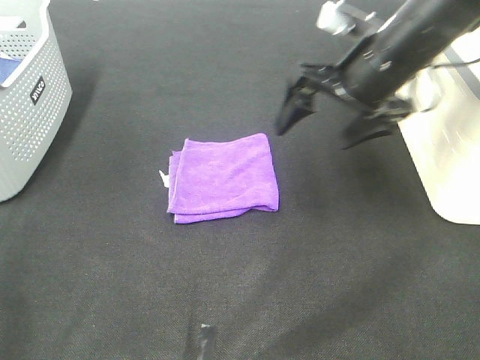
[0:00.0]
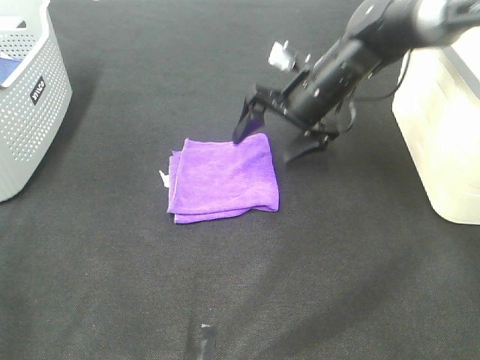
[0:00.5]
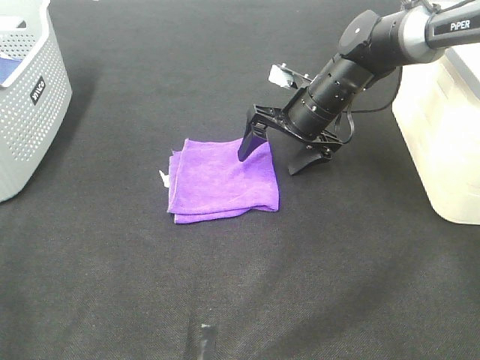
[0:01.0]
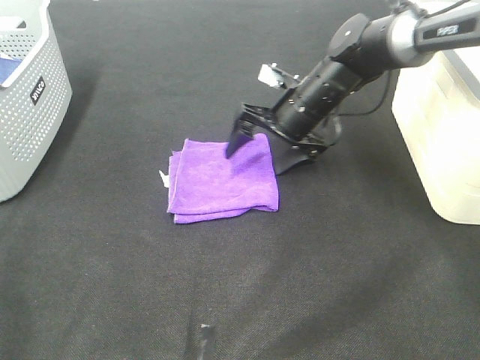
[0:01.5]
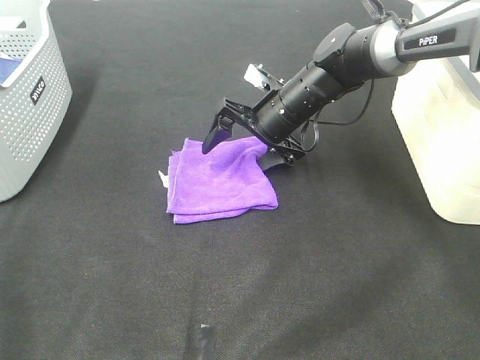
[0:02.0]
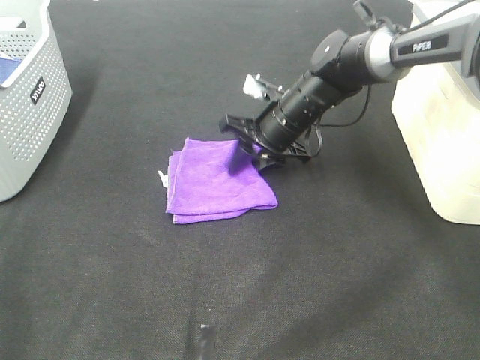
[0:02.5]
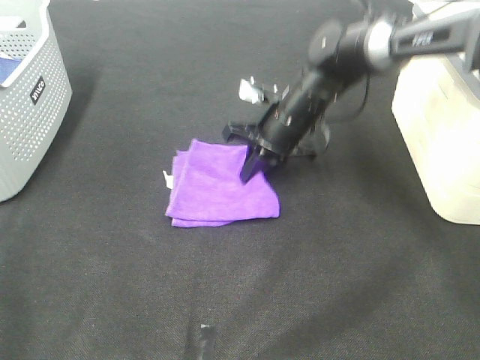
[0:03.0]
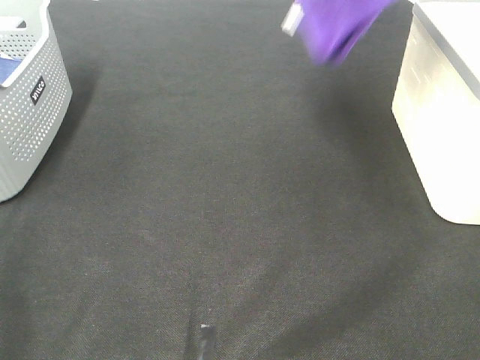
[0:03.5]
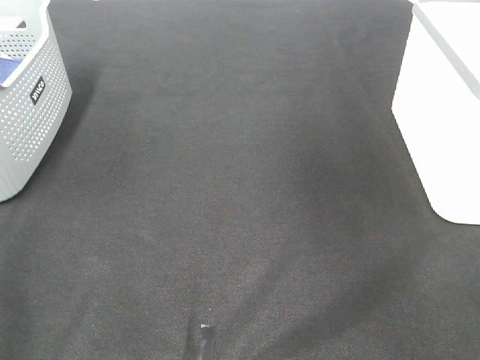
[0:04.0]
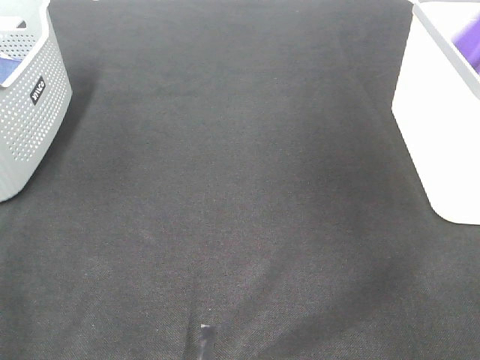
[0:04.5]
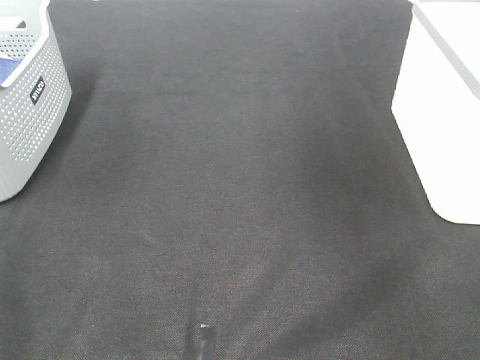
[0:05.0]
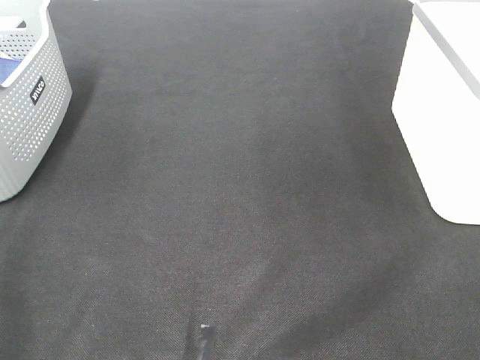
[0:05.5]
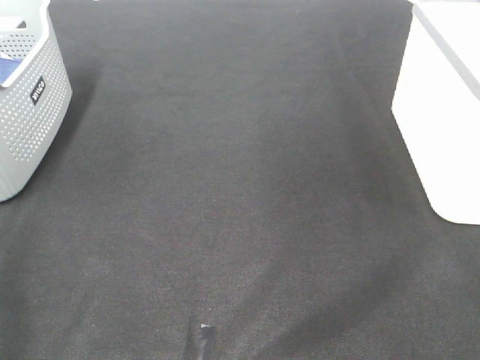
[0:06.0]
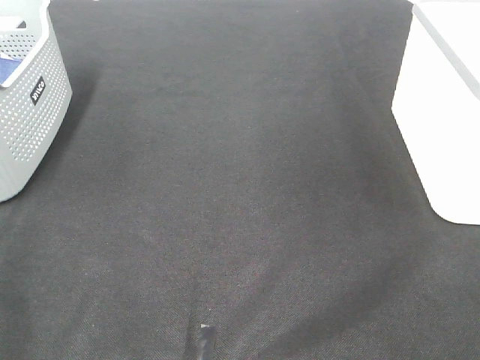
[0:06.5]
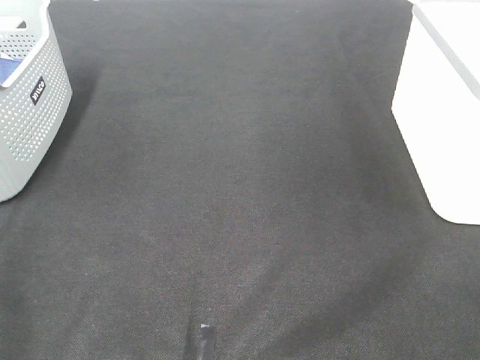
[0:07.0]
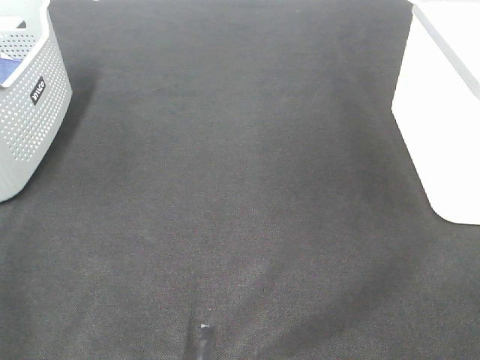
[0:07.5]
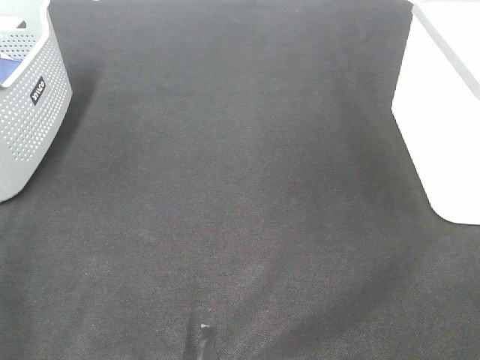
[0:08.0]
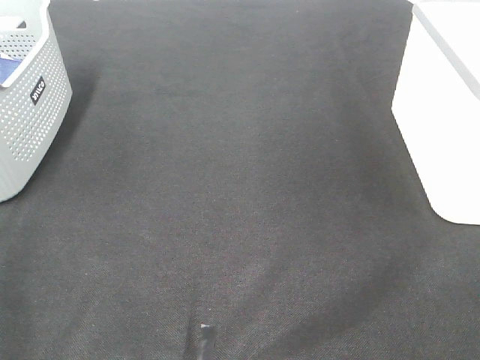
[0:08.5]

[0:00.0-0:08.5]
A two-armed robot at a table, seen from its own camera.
Step, 0:00.0 to 0:02.5: Right hand: grab the folded purple towel.
Step, 0:03.0 to 0:04.5: Right hand: place the purple towel in right basket.
0:00.0 to 0:02.0: The right gripper shifts approximately 15 cm downward, forward and to the left.
0:02.0 to 0:04.0: The right gripper shifts roughly 40 cm upward and to the right, and closes.

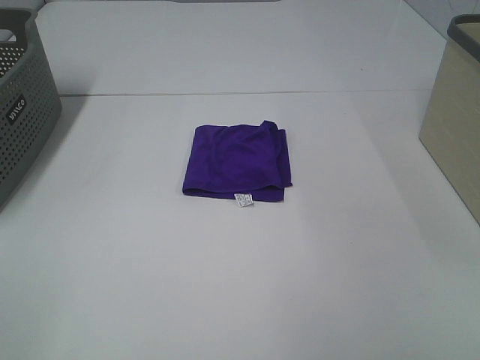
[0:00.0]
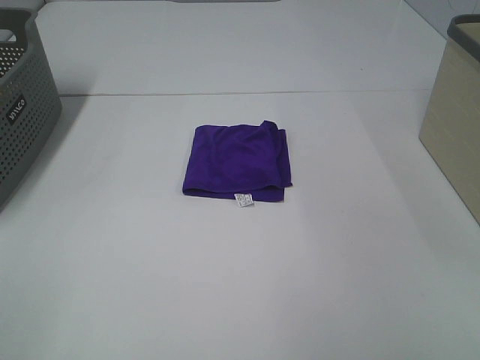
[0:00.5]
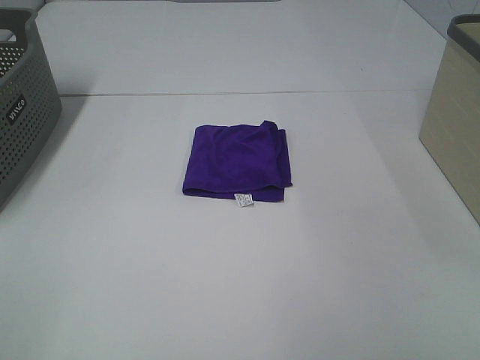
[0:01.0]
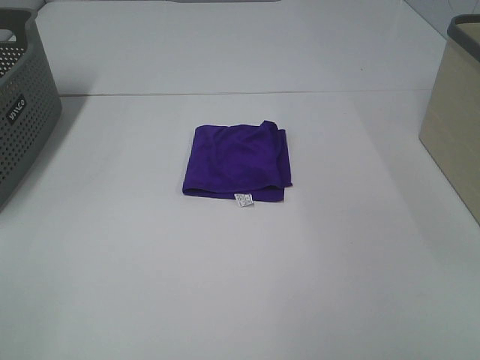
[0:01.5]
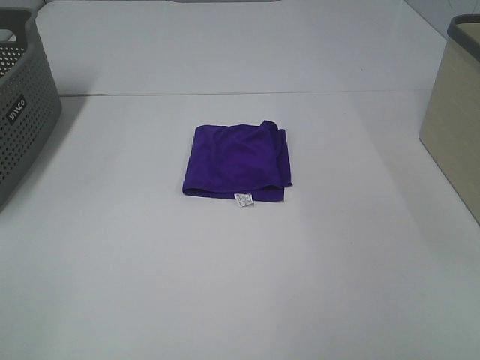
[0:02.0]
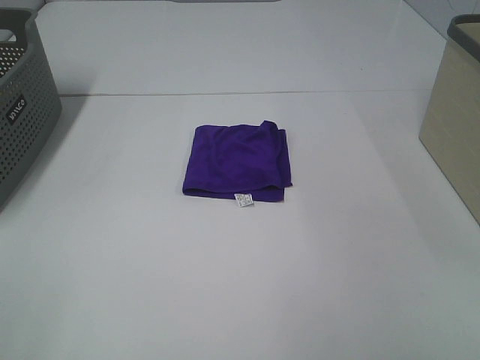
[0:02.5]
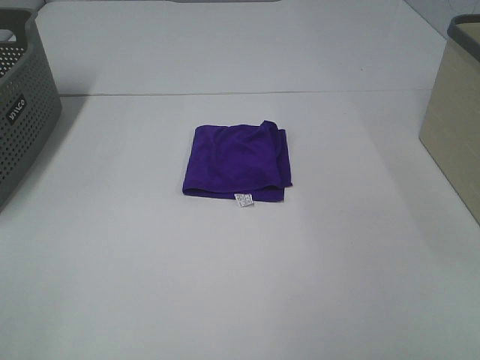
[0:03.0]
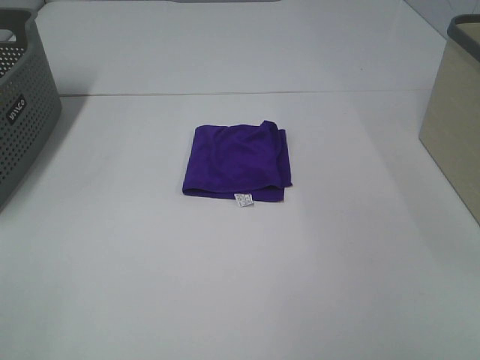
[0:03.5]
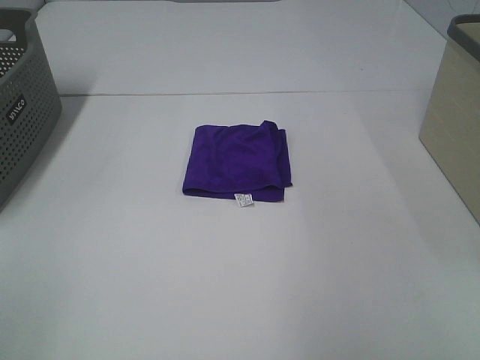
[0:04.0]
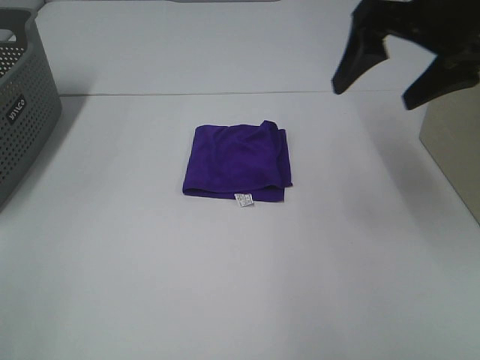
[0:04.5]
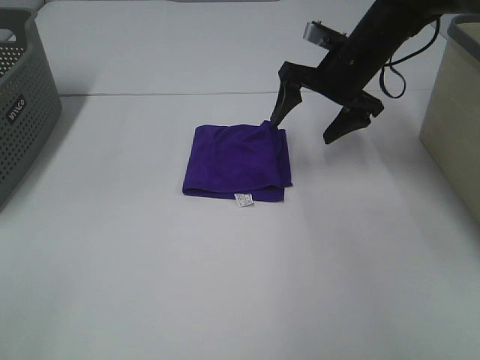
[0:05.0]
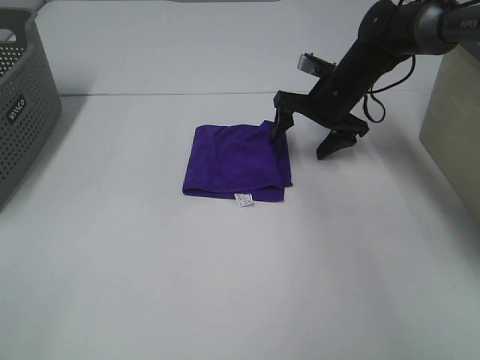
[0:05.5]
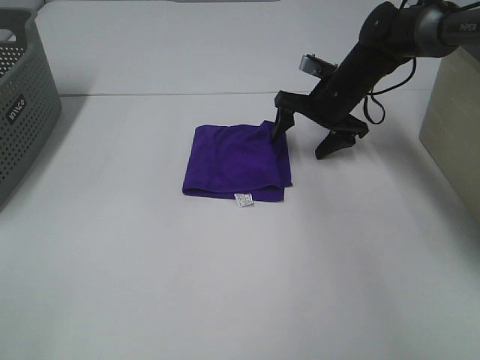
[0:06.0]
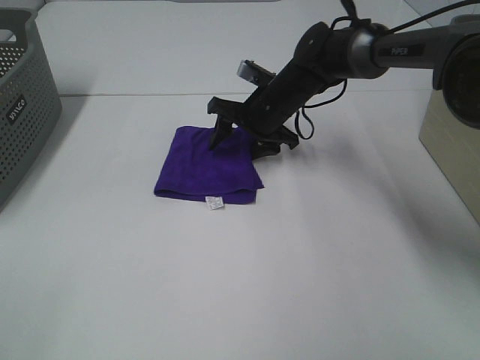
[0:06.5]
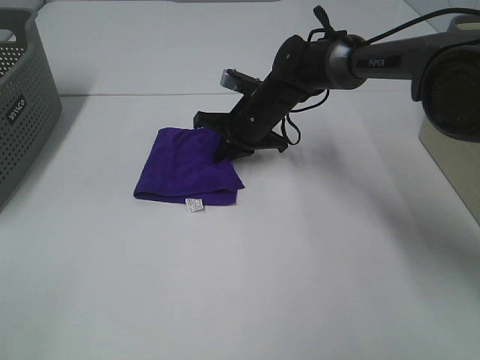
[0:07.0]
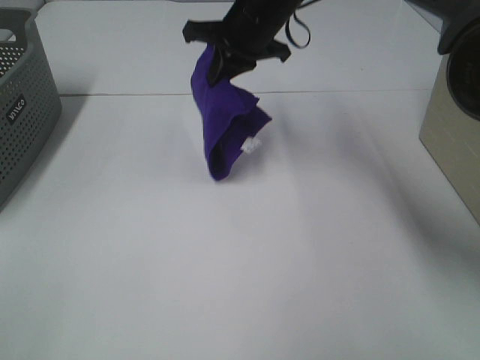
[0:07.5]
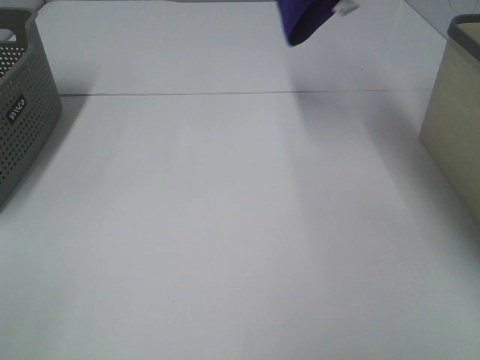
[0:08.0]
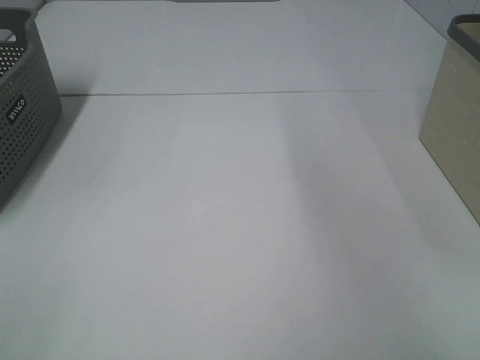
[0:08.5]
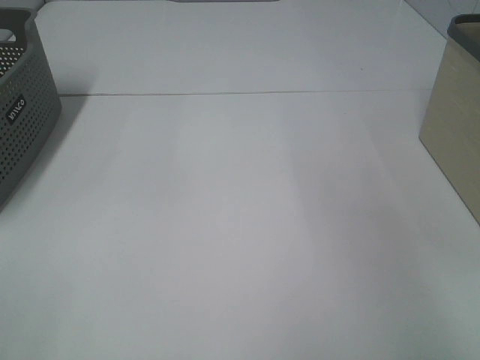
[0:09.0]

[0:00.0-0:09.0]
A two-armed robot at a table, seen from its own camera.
Step, 0:00.0 to 0:06.5: Right hand: grab the folded purple towel.
0:00.0 to 0:02.0: The two grippers keep their place.
0:02.0 to 0:04.5: The right gripper goes approximately 35 cm forward.
0:04.5 to 0:07.0: The right gripper shifts roughly 30 cm downward, to the left and forward, and closes its fingers.
0:07.0 to 0:09.0: The right gripper moves to the right and upward, some 50 cm.

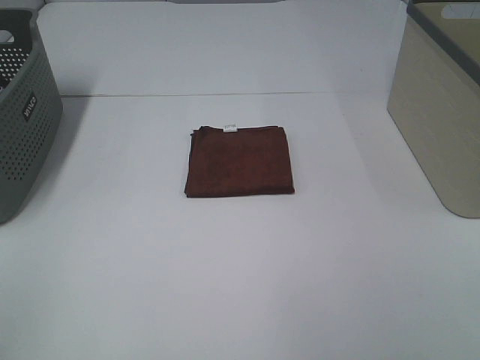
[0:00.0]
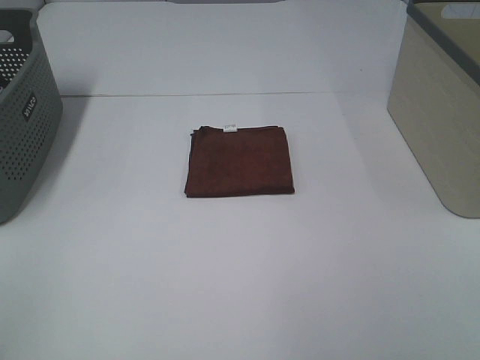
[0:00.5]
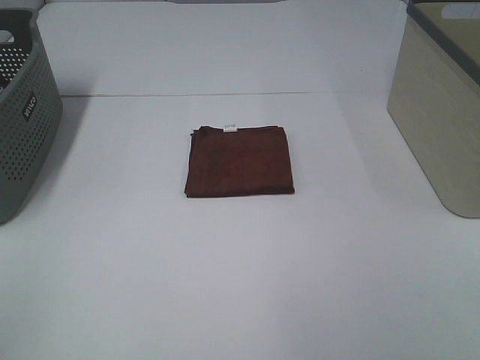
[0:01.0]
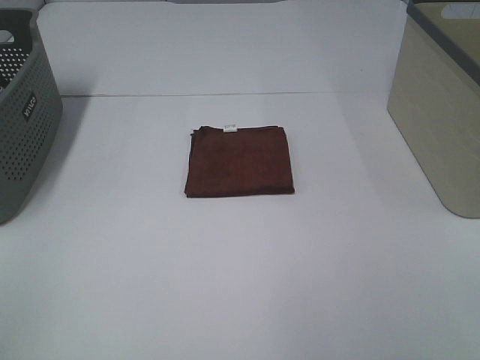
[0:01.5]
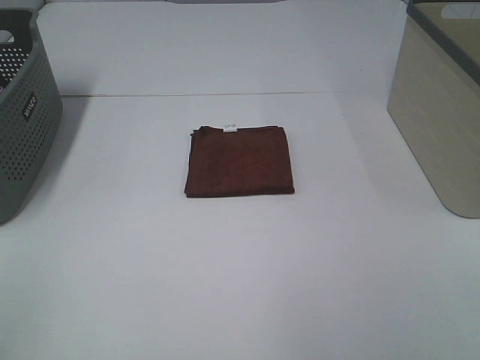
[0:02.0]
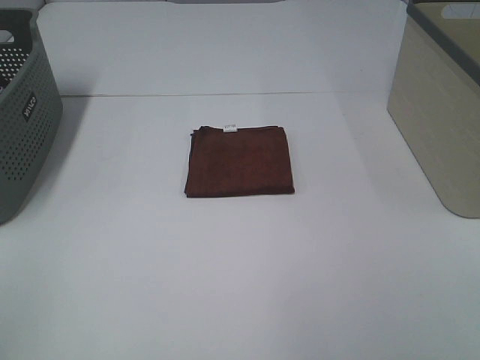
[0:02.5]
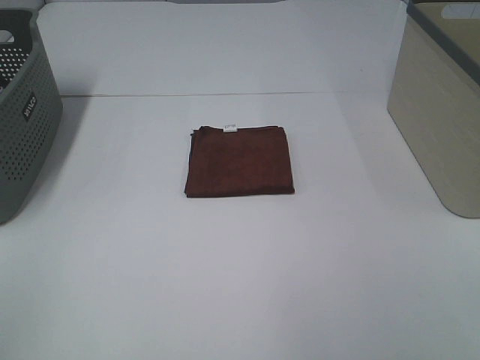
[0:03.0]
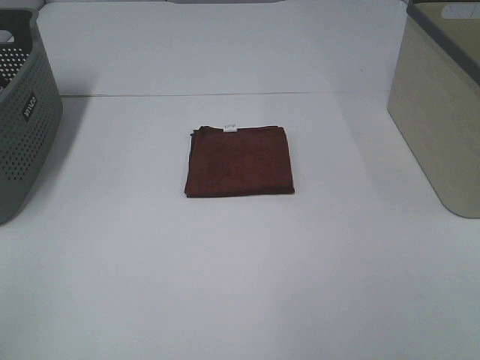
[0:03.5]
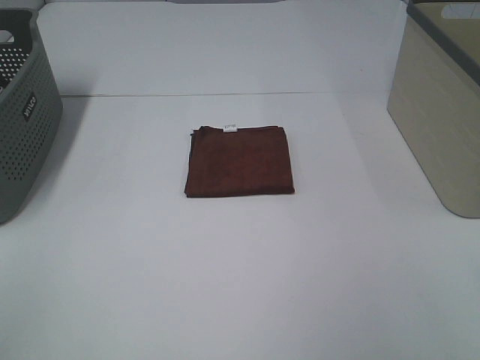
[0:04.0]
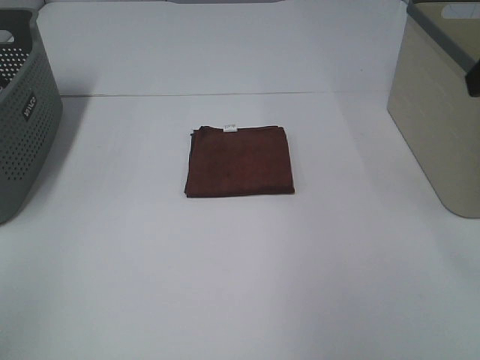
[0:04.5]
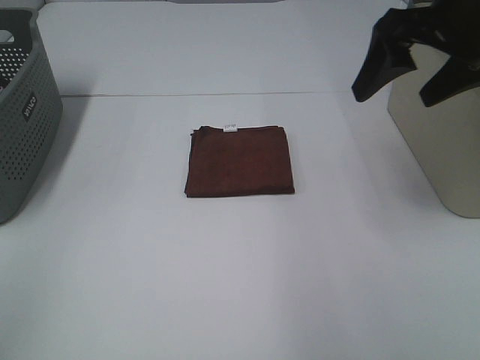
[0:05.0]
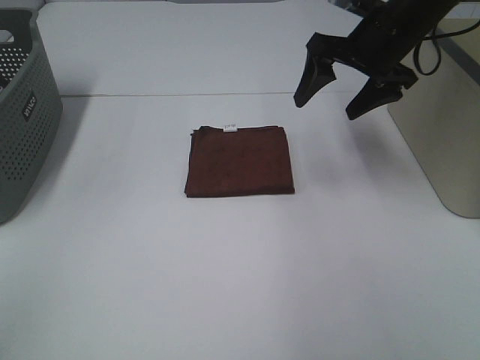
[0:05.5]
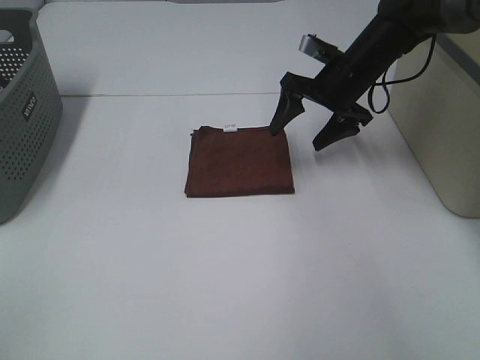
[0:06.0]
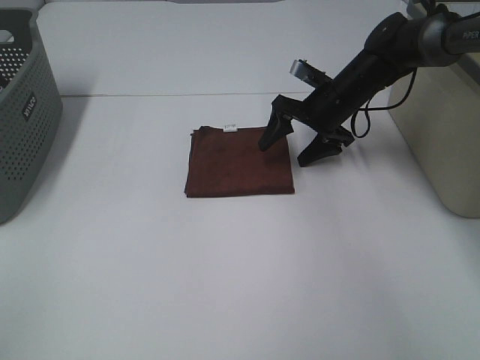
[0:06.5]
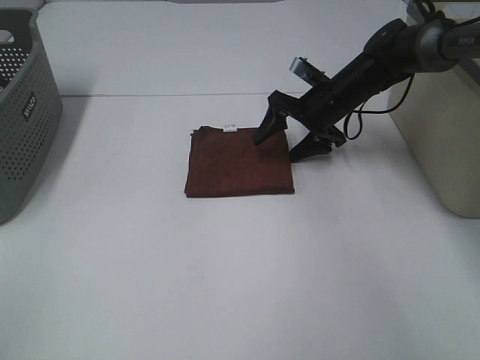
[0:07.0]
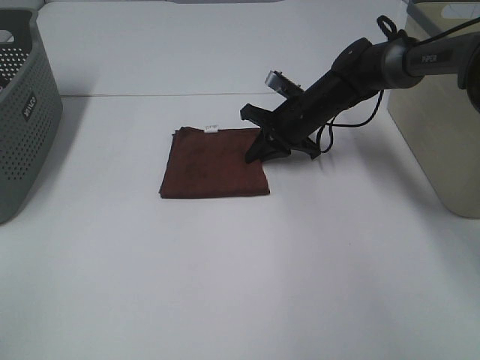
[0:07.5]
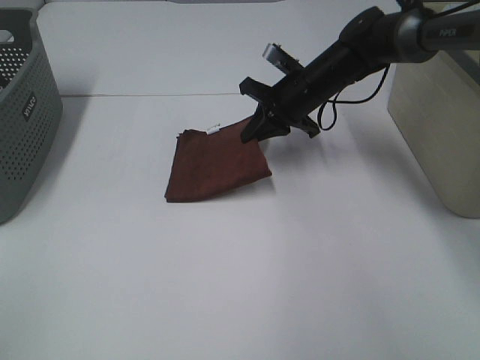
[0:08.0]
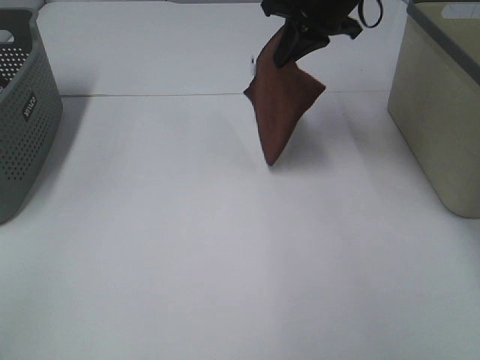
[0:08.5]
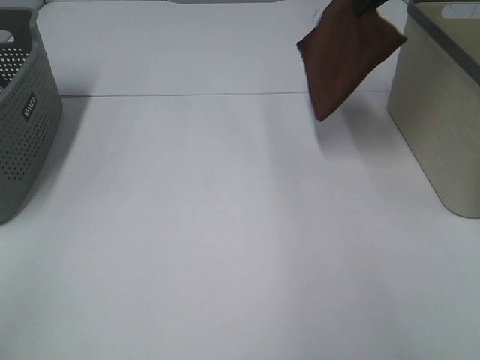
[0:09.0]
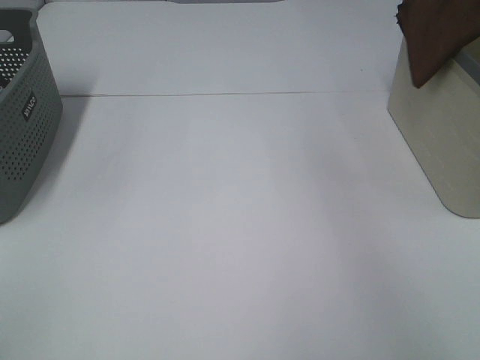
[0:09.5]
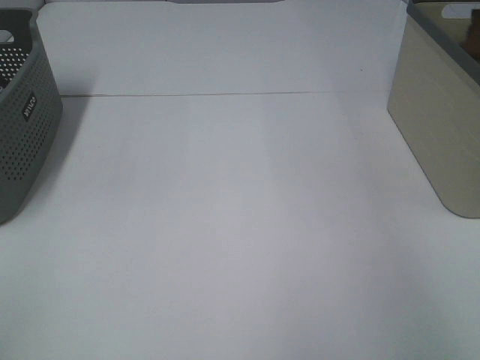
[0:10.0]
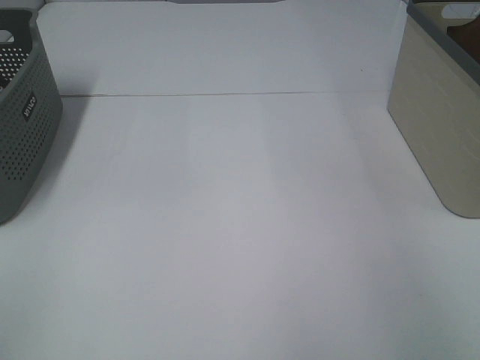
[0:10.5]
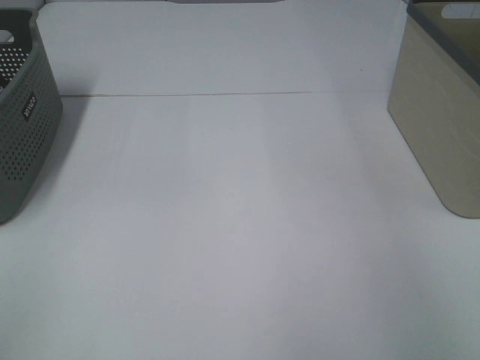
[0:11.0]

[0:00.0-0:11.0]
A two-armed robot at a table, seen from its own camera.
Step, 0:00.0 to 0:07.5: Right hand: grab the folded brown towel.
0:00.0 to 0:03.5: Both grippers stay about where they are.
0:03.5 to 0:05.5: The right gripper is displaced forward by approximately 40 cm.
0:05.5 to 0:07.5: The right gripper goes approximately 15 cm downward and to the left, and closes.
0:07.5 to 0:09.0: The right gripper moves upward, about 25 cm.
0:09.0 to 0:11.0: The right gripper goes some 20 cm to the right, and opens up.
